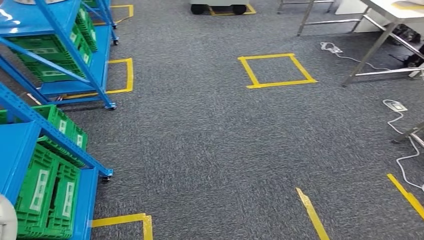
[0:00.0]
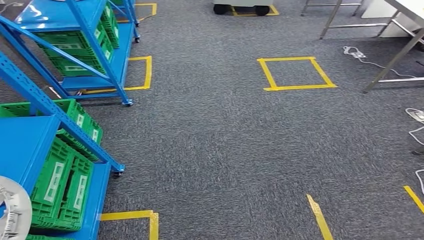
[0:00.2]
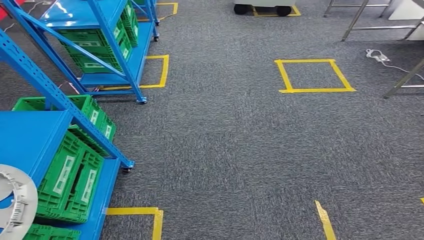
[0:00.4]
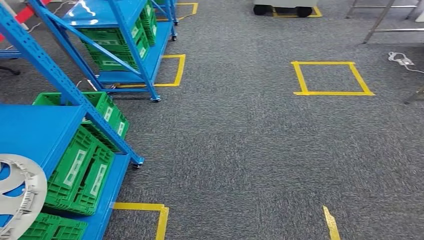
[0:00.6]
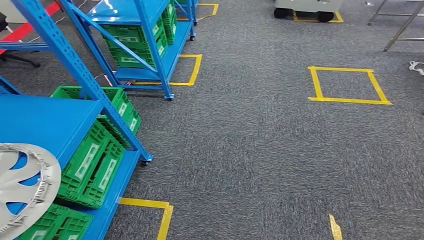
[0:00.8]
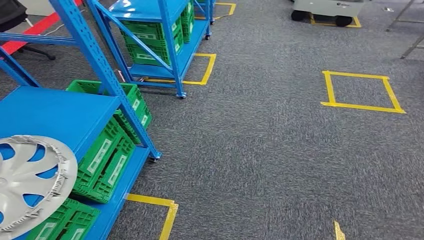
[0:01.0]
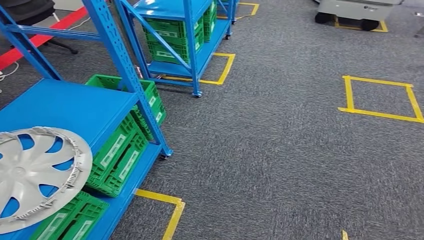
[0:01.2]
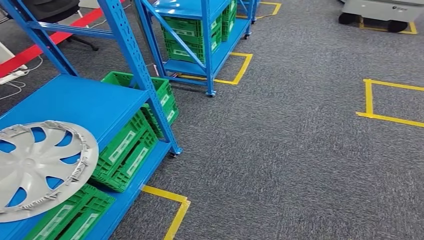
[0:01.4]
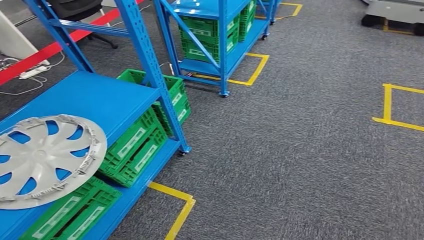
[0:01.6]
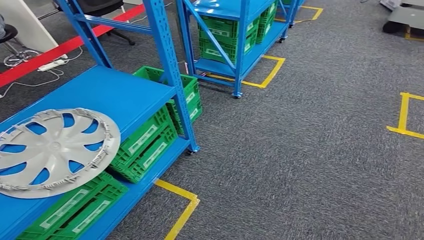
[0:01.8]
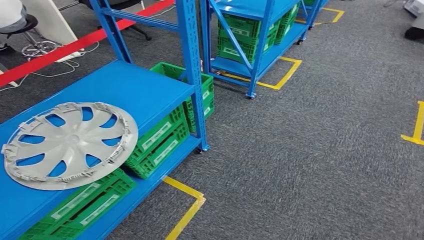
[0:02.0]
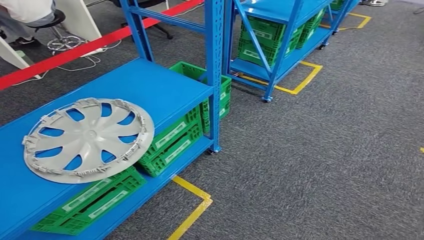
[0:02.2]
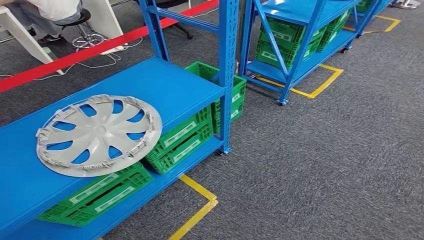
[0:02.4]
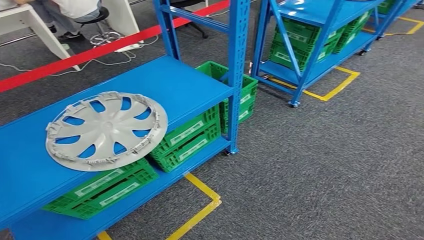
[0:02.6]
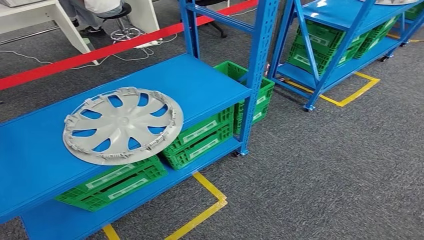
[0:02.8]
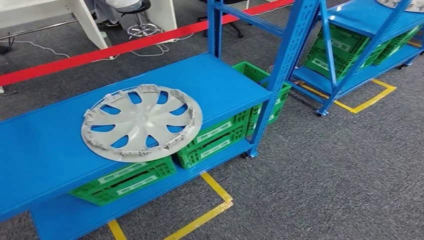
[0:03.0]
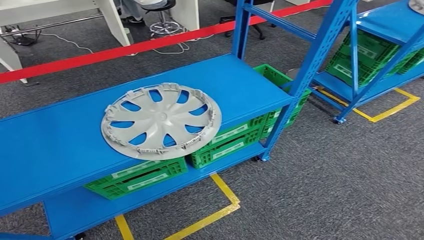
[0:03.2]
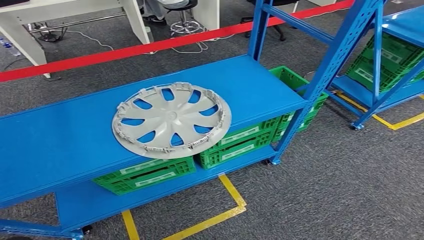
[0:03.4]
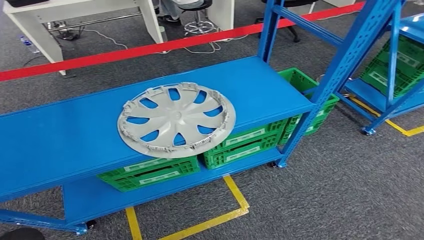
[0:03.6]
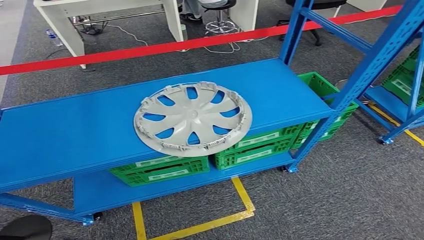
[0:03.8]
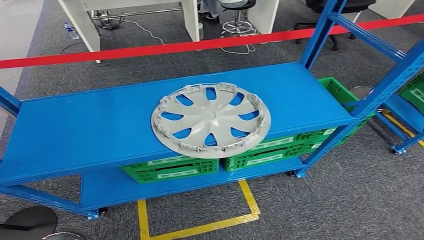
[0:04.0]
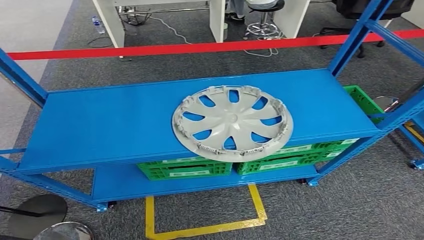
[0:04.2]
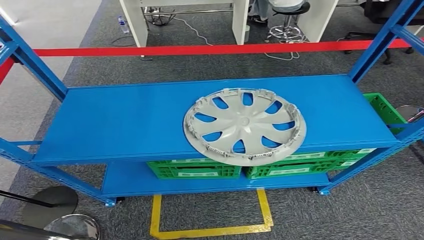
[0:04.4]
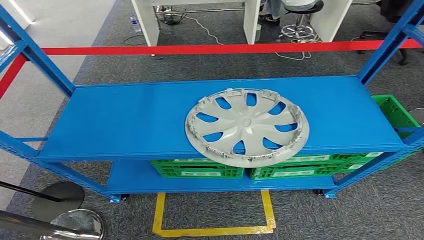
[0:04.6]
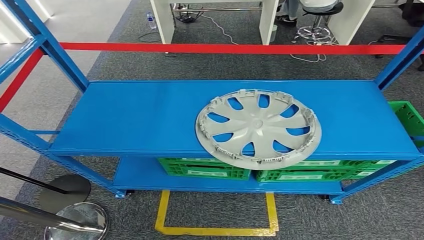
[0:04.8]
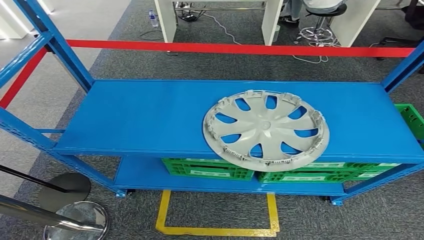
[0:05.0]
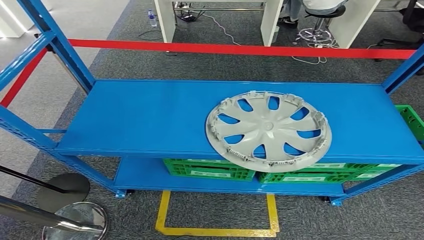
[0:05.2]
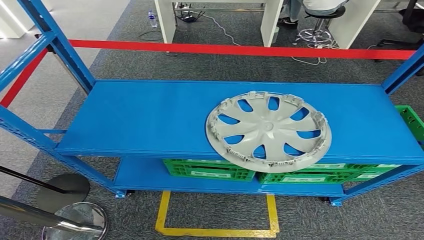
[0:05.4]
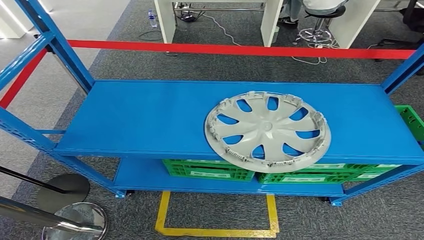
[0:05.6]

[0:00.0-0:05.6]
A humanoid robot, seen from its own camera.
Step, 0:00.0 to 0:05.6: Return to the initial position at the workbench.
